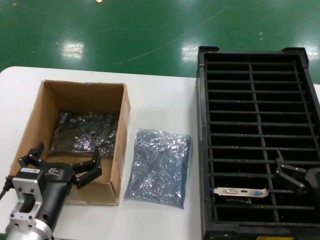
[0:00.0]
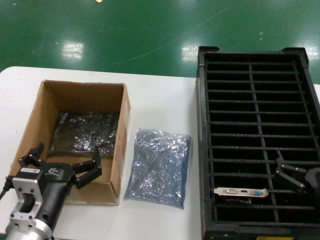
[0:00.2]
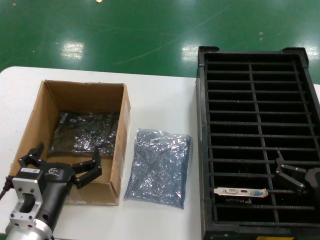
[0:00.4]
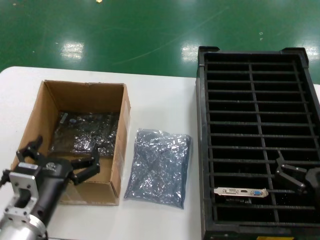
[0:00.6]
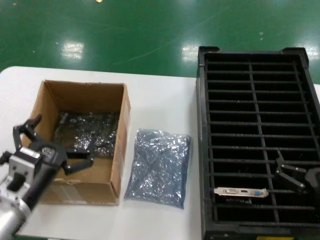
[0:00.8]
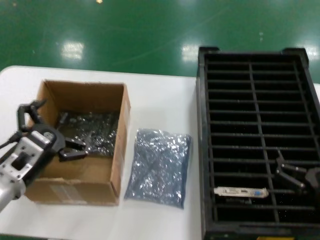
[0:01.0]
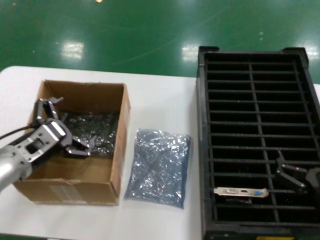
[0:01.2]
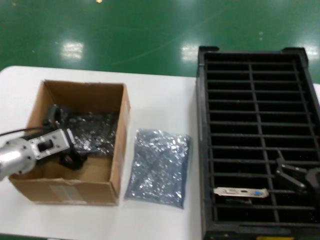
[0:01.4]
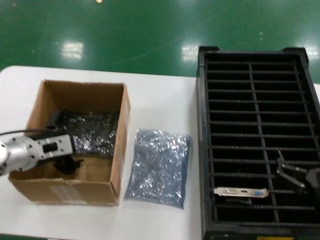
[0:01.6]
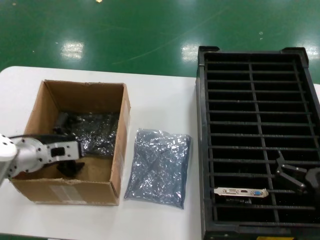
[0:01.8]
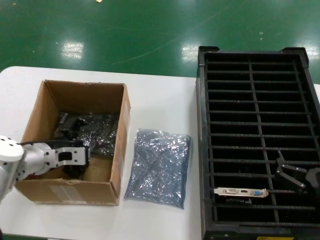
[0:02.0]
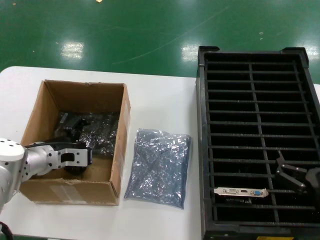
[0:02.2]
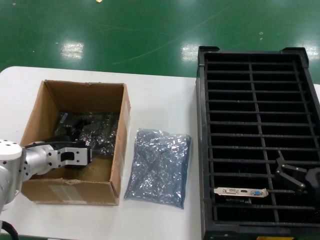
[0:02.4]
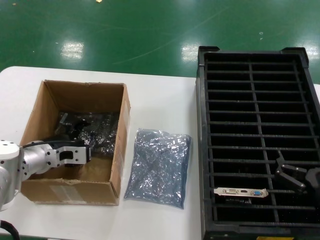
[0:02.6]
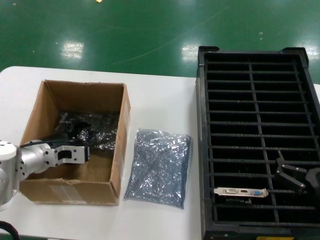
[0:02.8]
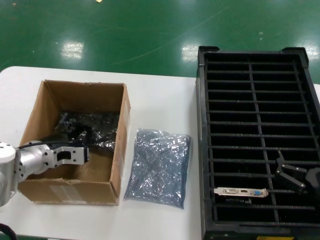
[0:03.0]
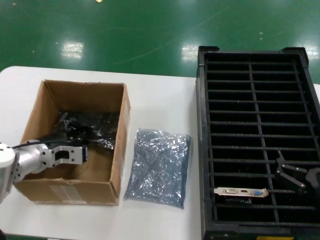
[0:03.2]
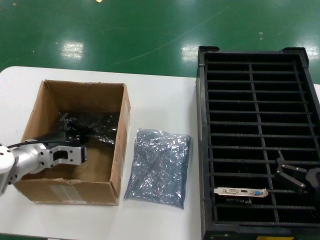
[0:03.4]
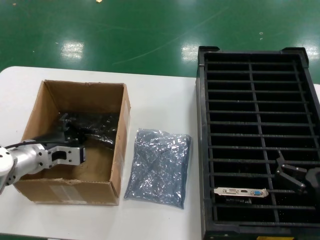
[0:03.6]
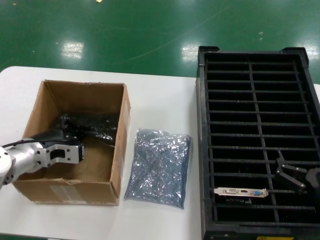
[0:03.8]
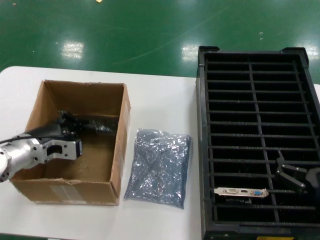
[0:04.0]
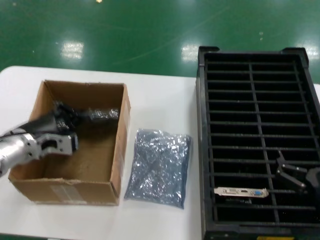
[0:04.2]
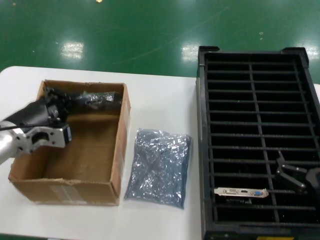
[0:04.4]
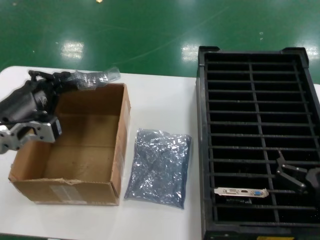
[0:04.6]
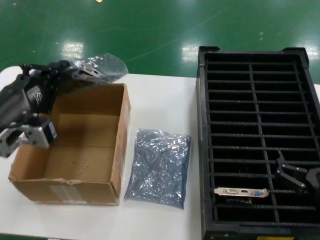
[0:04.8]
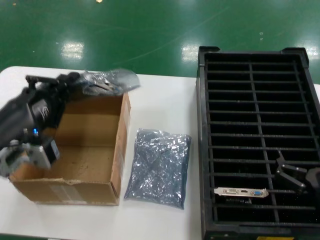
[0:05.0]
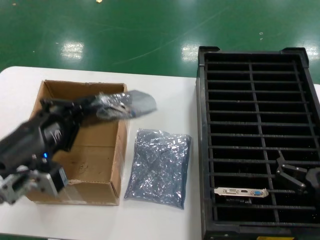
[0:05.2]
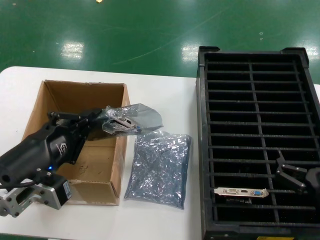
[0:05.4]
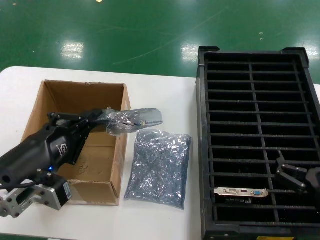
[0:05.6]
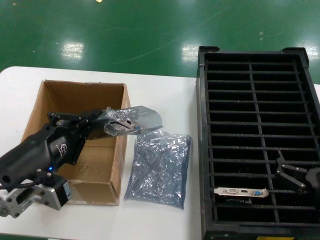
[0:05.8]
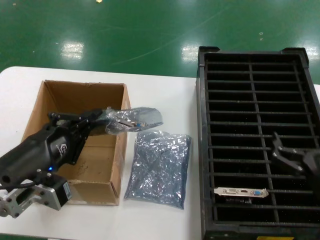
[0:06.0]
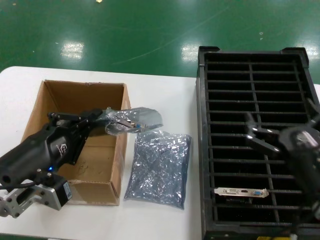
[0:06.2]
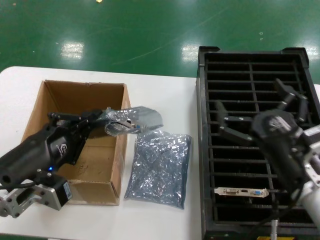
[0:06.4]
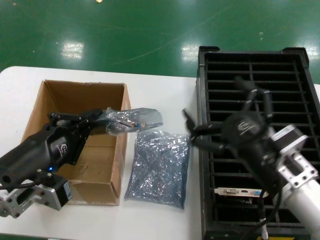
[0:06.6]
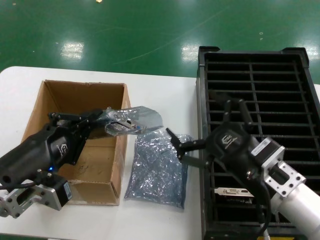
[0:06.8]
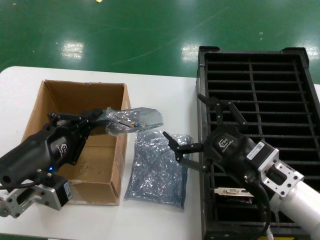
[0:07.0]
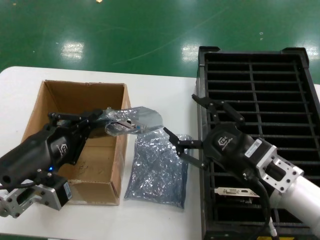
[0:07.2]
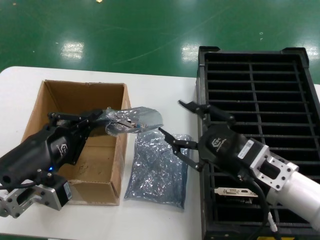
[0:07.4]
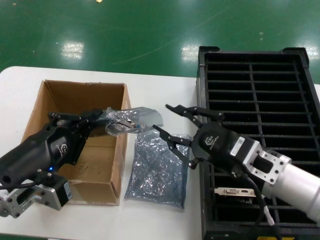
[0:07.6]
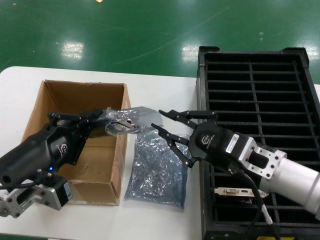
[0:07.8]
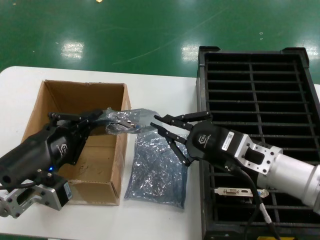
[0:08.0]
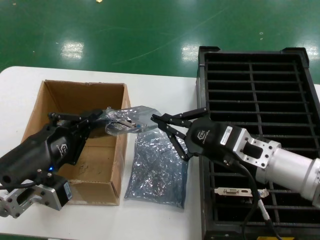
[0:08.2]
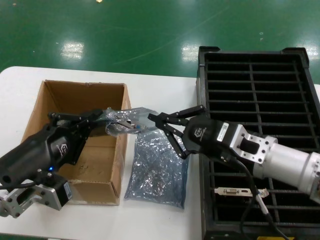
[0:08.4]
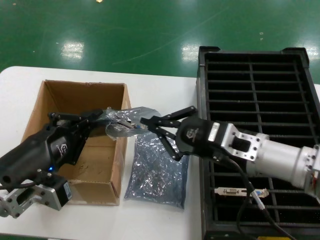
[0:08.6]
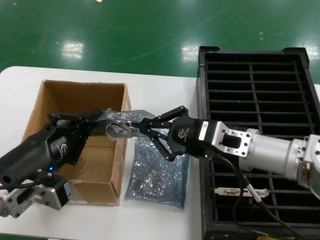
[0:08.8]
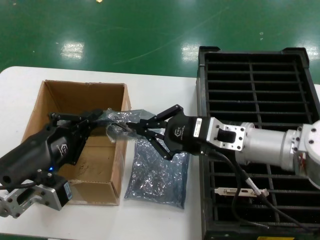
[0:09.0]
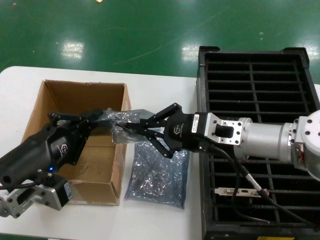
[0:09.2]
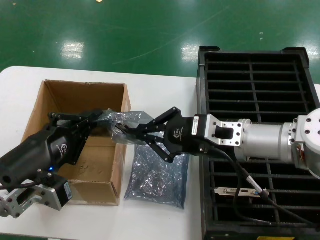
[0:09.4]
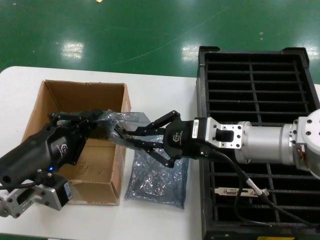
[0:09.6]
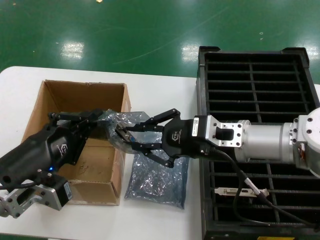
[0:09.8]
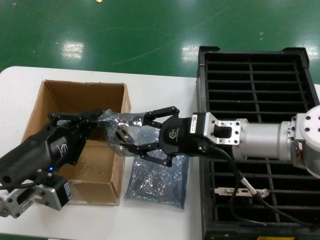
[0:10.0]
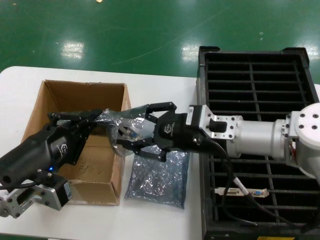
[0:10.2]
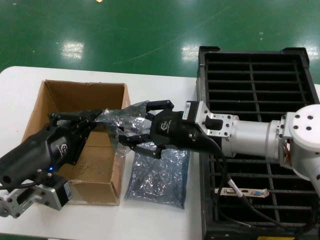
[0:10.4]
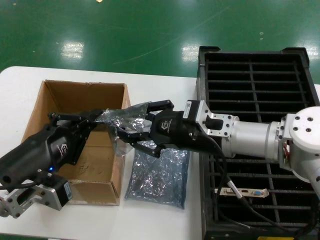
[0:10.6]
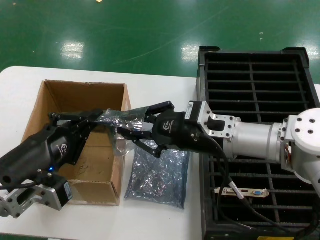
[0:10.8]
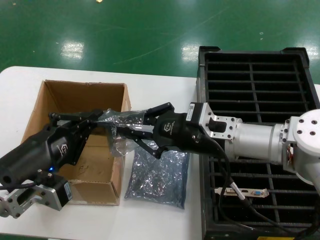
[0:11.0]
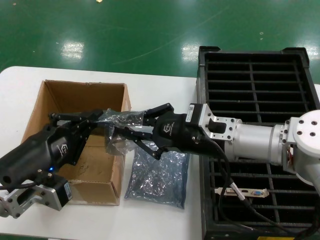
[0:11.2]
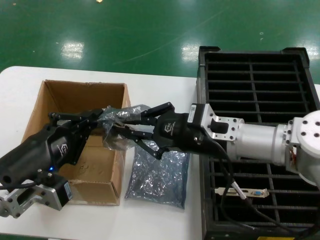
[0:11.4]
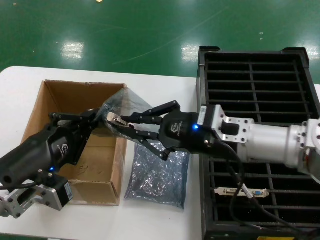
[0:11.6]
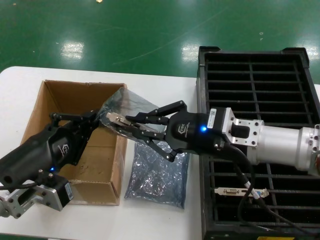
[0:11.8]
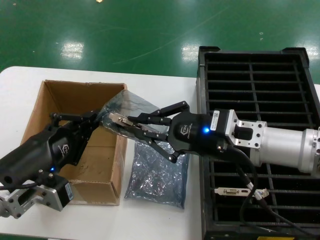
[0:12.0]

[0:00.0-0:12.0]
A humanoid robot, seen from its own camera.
Task of the whole recording: take out graphics card from box remove packaging put into black container.
Step, 0:00.0 to 0:03.0: Grasp the bag.
Step, 0:03.4 to 0:05.4: Lift the bag.
0:00.0 to 0:01.6: The left hand shifts about 20 cm forward and to the left.
0:01.6 to 0:03.0: The hands make only small movements.
0:03.0 to 0:04.4: The left hand goes roughly 10 cm upward and backward.
0:04.4 to 0:06.0: The left hand goes some 15 cm backward.
0:06.0 to 0:07.6: The right hand heads to the left, forward and upward, covering roughly 15 cm.
0:07.6 to 0:09.0: The right hand moves forward, about 5 cm.
0:09.0 to 0:10.4: The hands stay close to where they were, moving slightly.
0:10.4 to 0:12.0: The right hand shifts by approximately 5 cm.

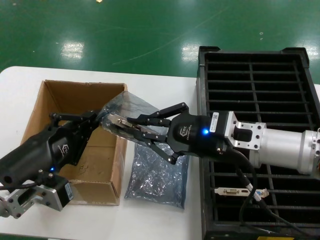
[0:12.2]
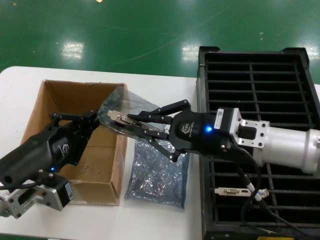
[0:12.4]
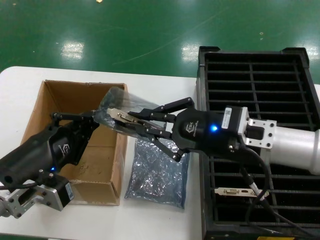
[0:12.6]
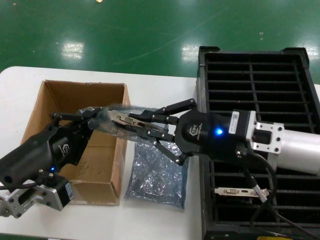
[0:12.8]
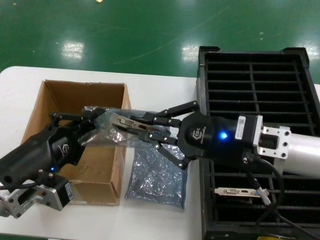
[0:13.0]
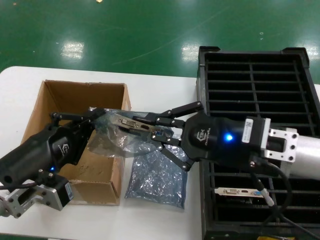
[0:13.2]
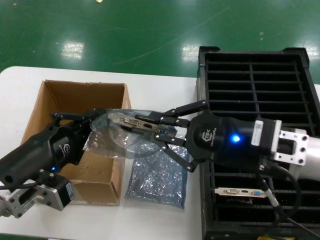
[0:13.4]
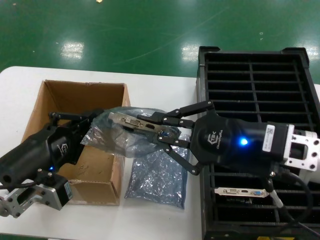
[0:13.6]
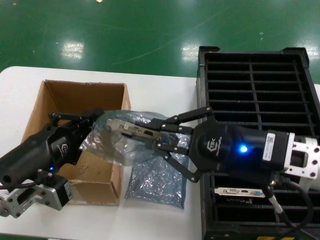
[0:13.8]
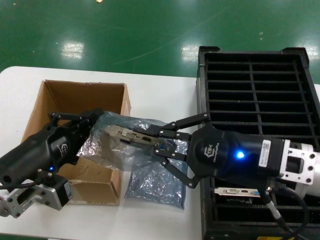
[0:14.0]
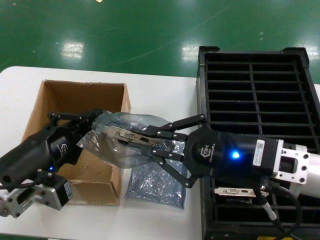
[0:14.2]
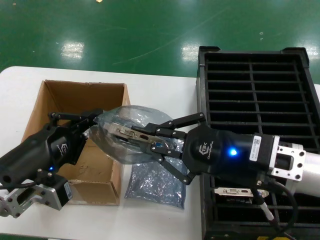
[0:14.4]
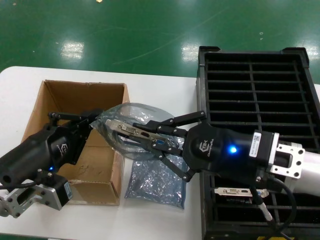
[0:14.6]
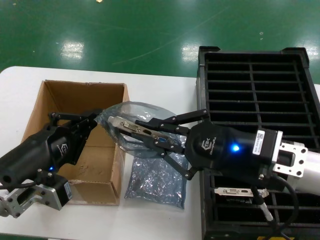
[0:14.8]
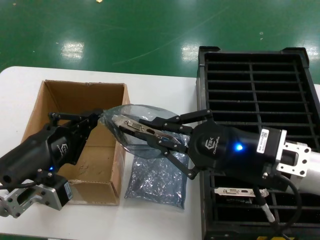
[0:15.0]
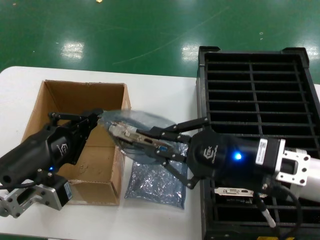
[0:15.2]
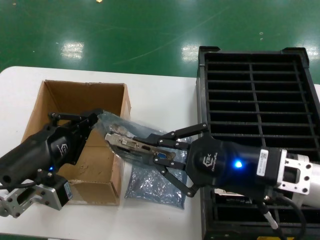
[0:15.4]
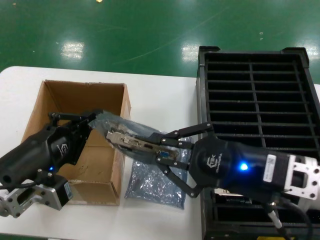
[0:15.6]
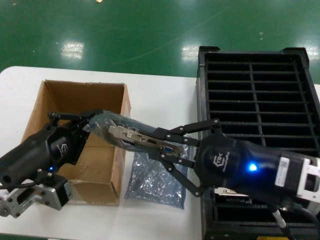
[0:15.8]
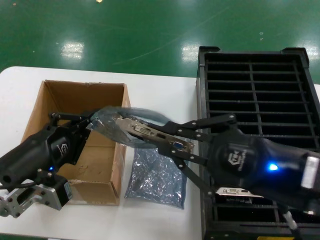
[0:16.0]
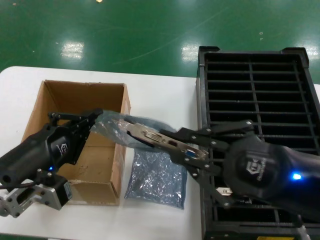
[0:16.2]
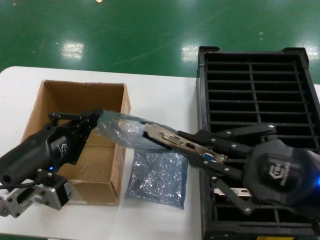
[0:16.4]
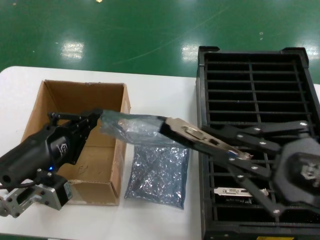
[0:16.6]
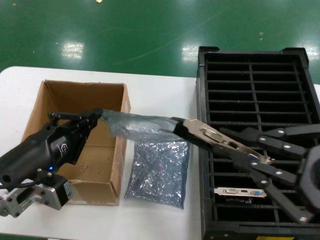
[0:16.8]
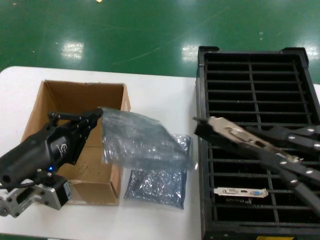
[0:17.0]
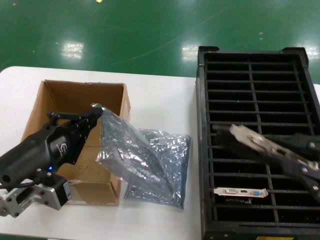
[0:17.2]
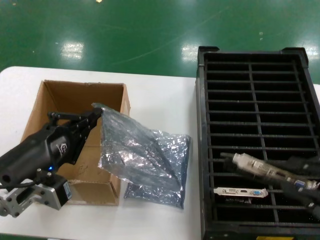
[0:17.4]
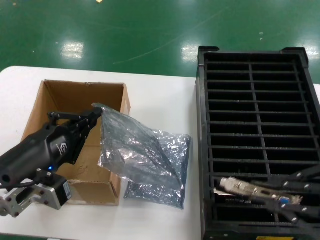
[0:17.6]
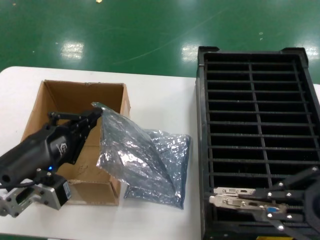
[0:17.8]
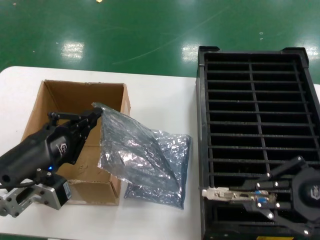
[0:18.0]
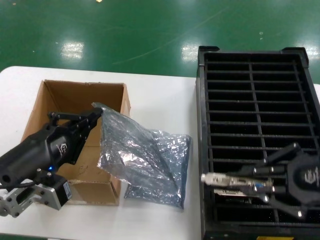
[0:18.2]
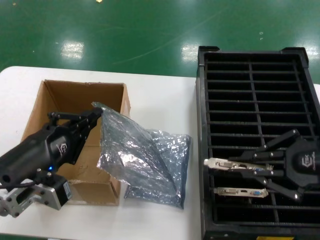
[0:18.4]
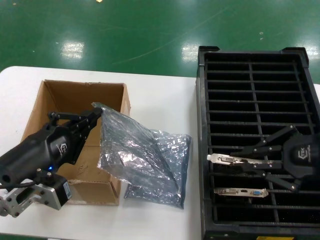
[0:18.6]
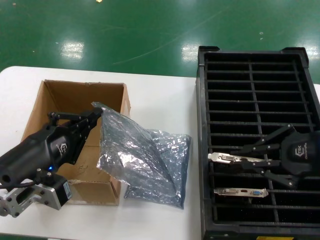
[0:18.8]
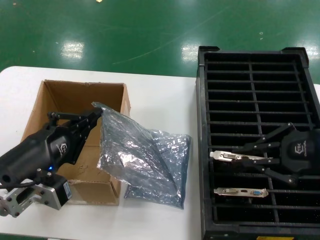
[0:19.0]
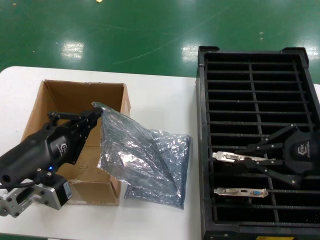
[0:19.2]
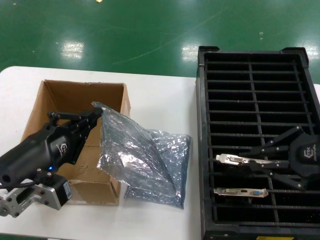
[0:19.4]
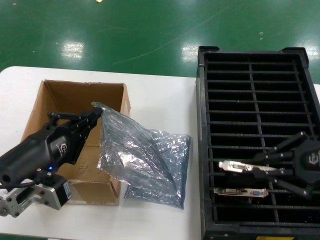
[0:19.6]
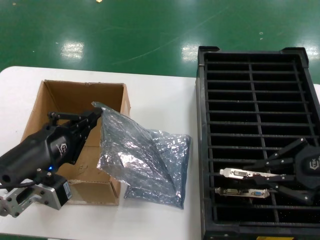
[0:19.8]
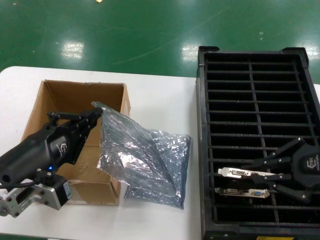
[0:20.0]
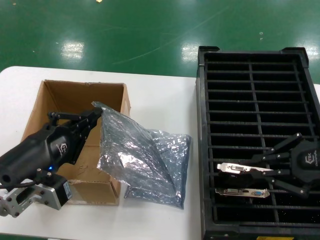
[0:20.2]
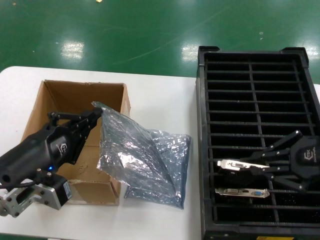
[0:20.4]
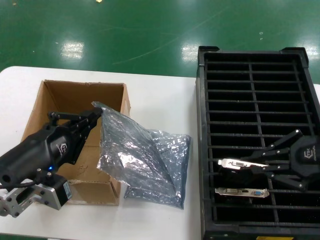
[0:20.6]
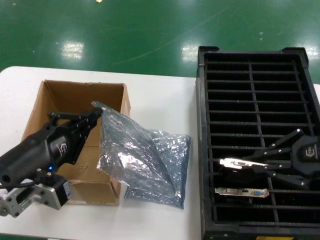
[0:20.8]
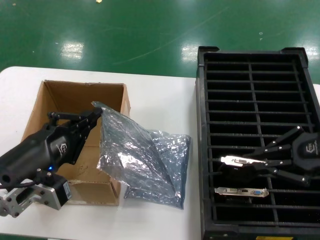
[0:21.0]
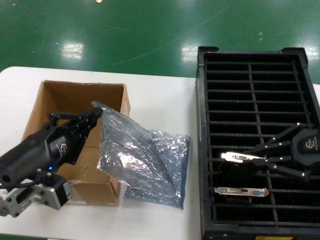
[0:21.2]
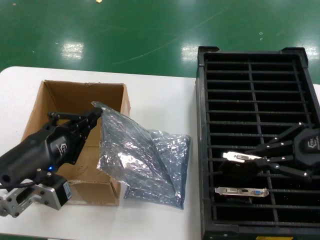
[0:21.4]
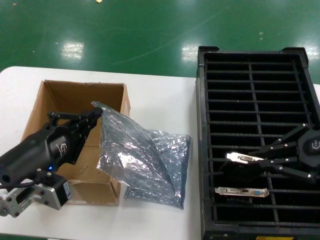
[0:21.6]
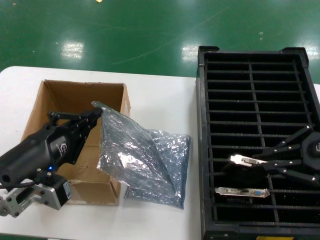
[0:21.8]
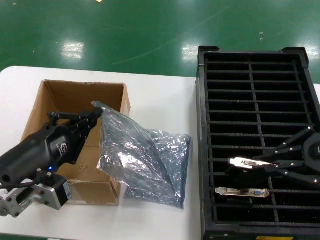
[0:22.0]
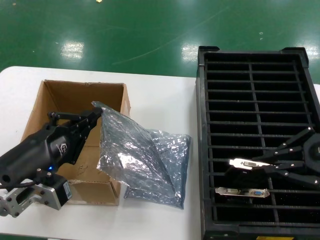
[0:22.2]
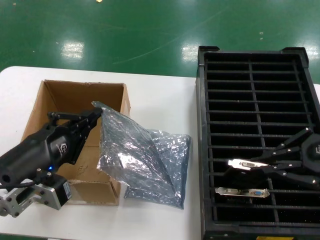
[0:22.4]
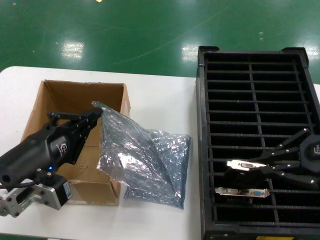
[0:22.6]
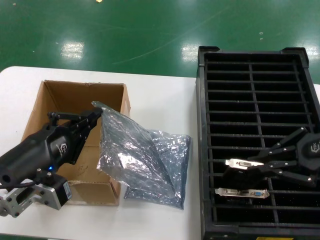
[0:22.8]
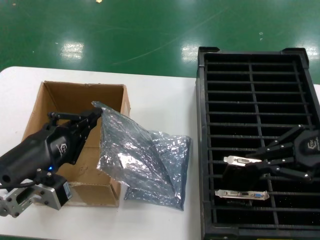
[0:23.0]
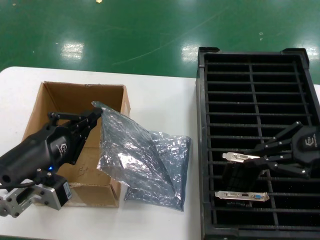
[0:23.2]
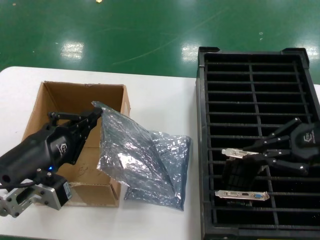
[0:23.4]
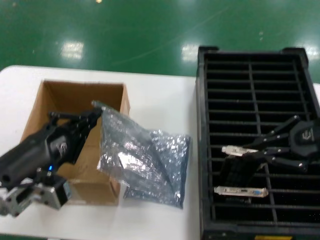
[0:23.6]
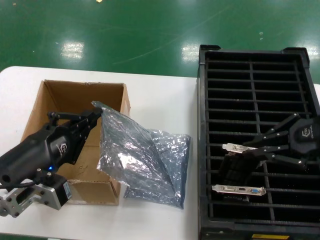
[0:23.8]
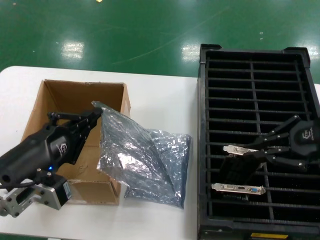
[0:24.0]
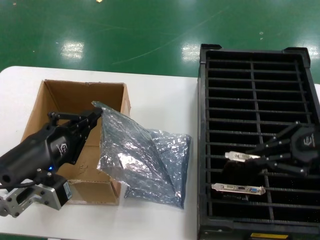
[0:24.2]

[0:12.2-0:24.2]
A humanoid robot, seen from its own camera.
Task of the whole recording: take out graphics card from box remove packaging put into black container.
Step, 0:12.2 to 0:17.0: Take out the hard disk of the bag.
0:12.2 to 0:13.8: The right hand is displaced backward by approximately 10 cm.
0:13.8 to 0:15.2: There are only small adjustments of the hands.
0:15.2 to 0:16.6: The right hand travels backward, to the right and upward by roughly 15 cm.
0:16.6 to 0:18.2: The right hand is displaced forward and to the right by approximately 10 cm.
0:18.2 to 0:19.8: The right hand heads forward, covering about 5 cm.
0:19.8 to 0:21.2: The right hand is displaced forward by approximately 5 cm.
0:21.2 to 0:24.2: There are only small adjustments of the hands.
